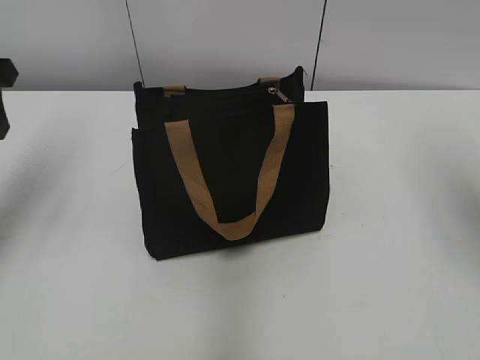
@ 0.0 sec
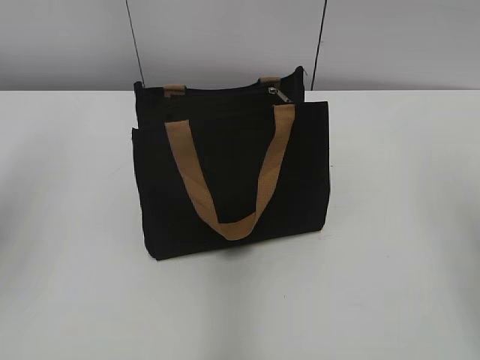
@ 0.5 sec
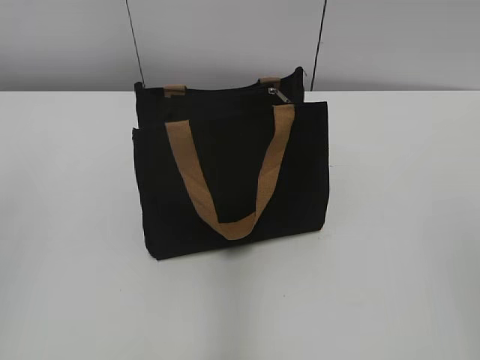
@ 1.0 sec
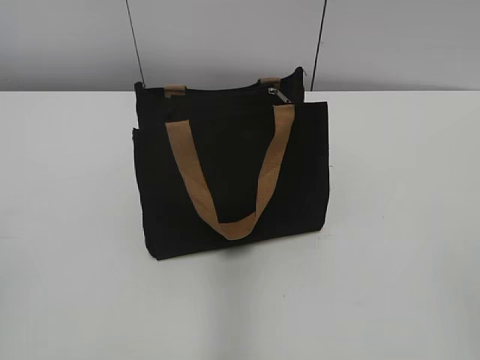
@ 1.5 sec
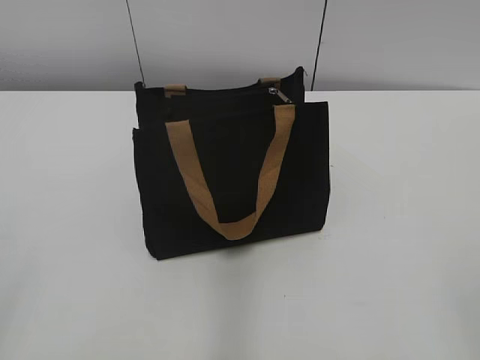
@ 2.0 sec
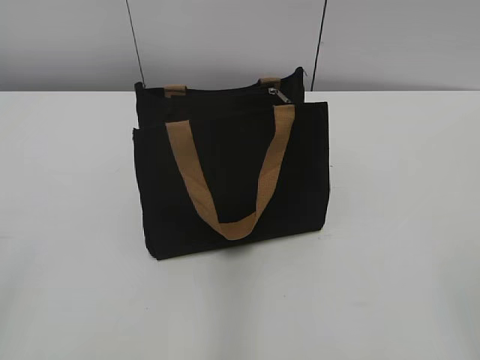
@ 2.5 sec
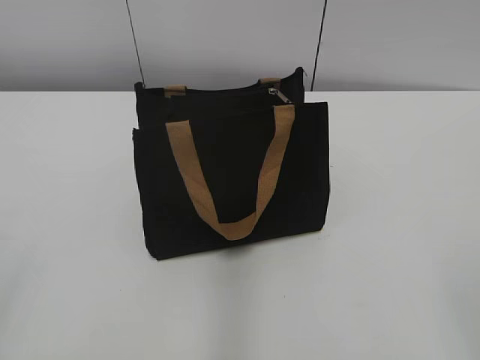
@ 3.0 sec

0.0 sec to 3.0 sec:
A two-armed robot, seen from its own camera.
0.0 sec to 1.5 sec: The two grippers go some 30 cm backward.
